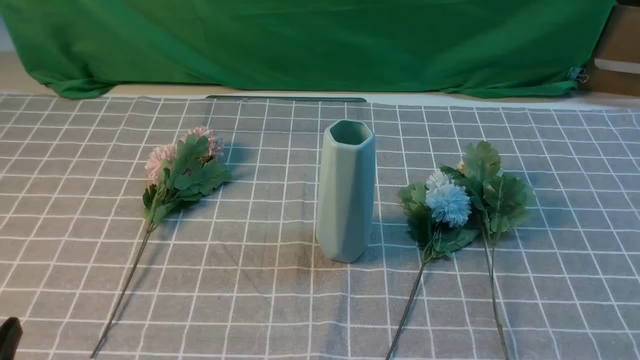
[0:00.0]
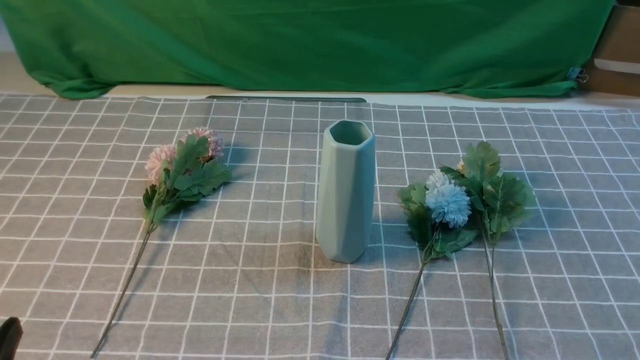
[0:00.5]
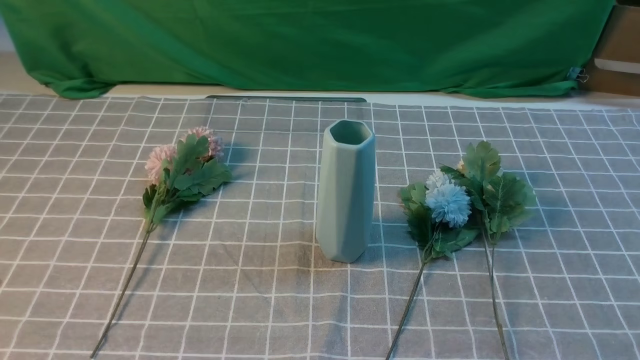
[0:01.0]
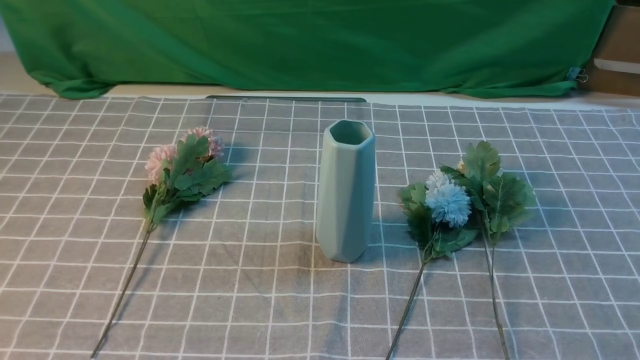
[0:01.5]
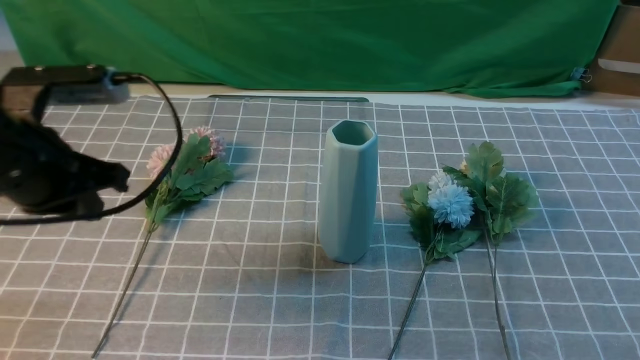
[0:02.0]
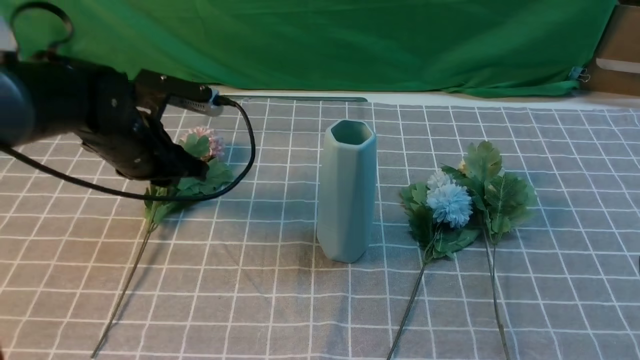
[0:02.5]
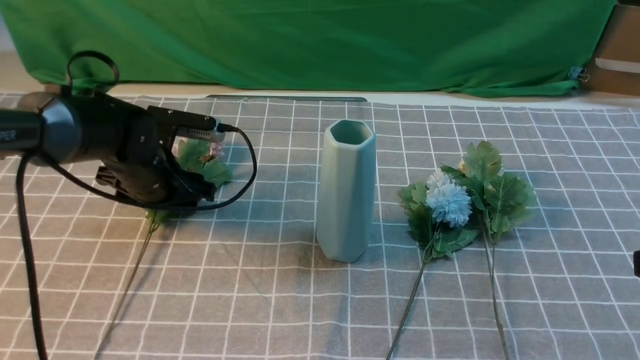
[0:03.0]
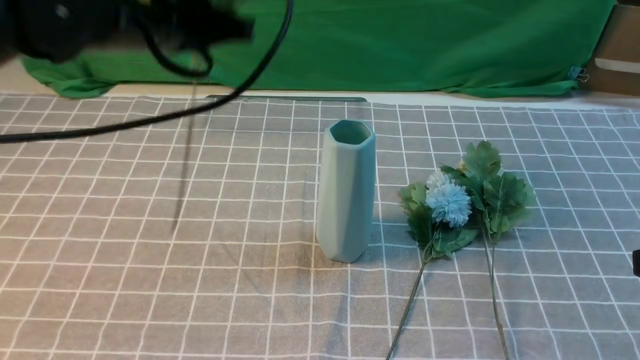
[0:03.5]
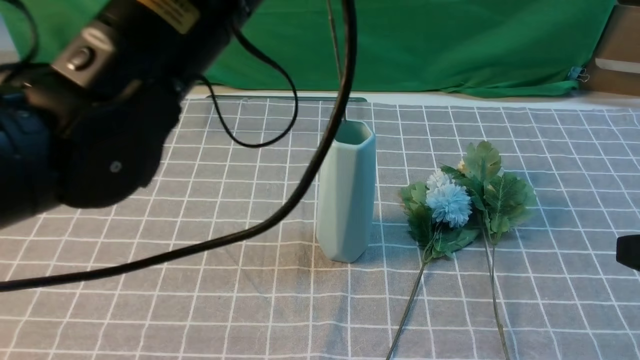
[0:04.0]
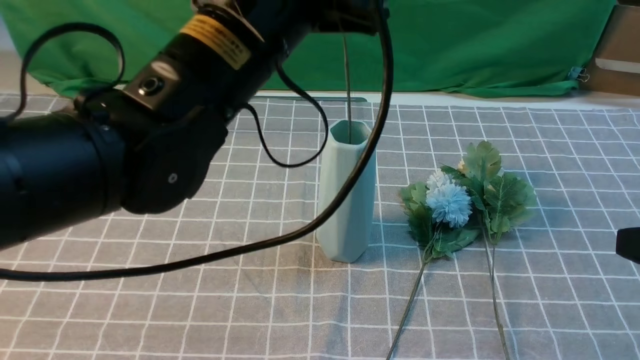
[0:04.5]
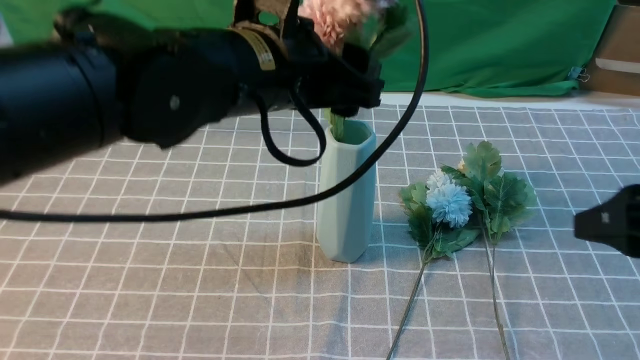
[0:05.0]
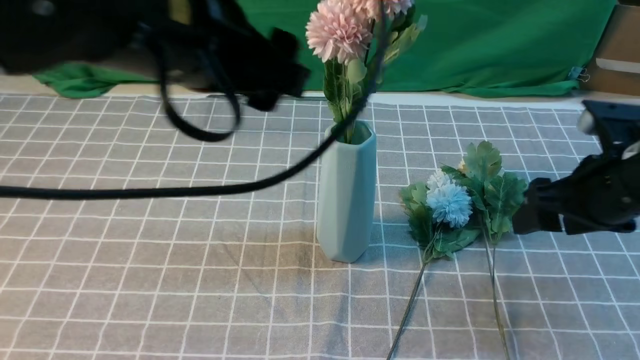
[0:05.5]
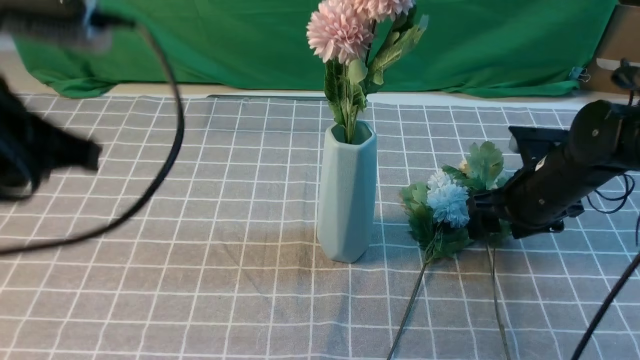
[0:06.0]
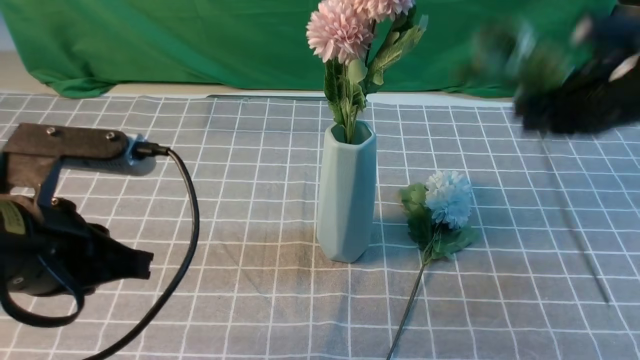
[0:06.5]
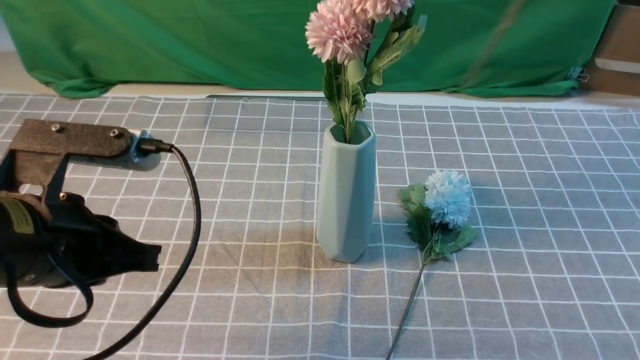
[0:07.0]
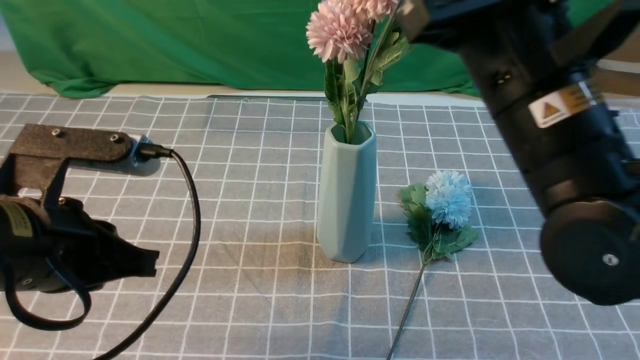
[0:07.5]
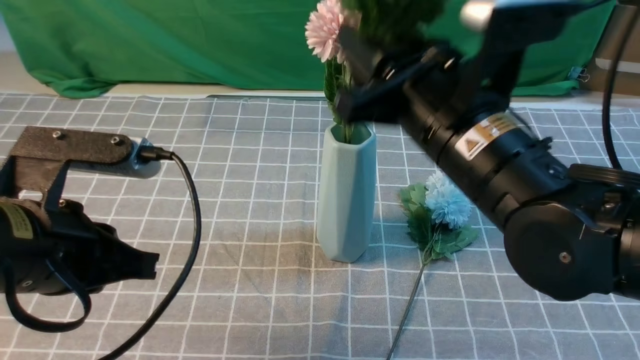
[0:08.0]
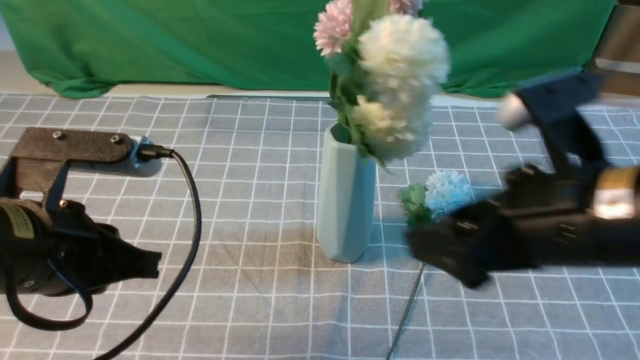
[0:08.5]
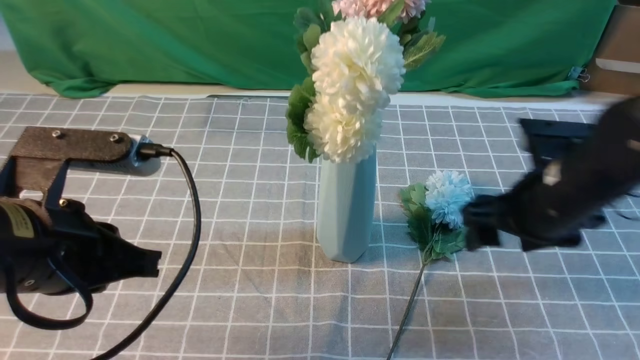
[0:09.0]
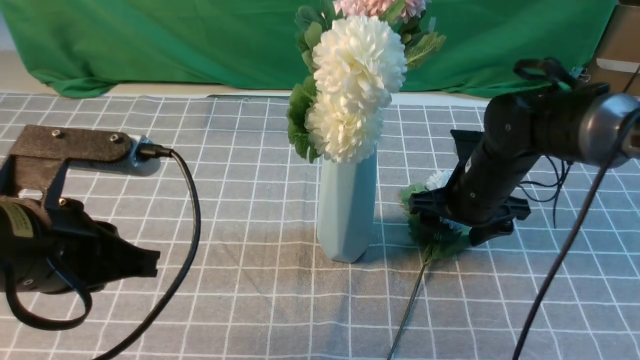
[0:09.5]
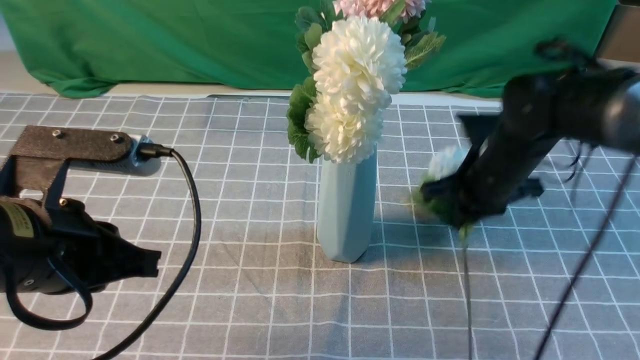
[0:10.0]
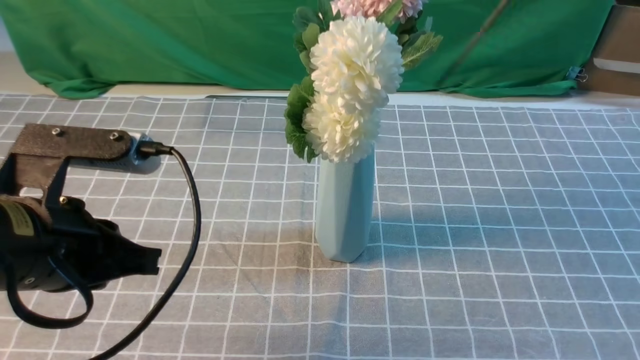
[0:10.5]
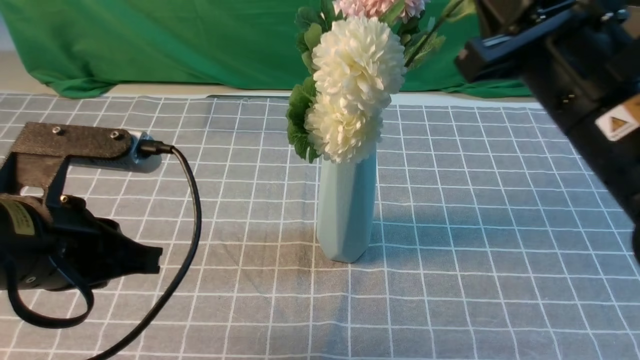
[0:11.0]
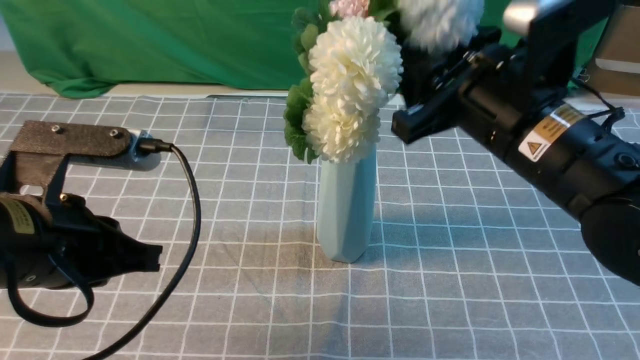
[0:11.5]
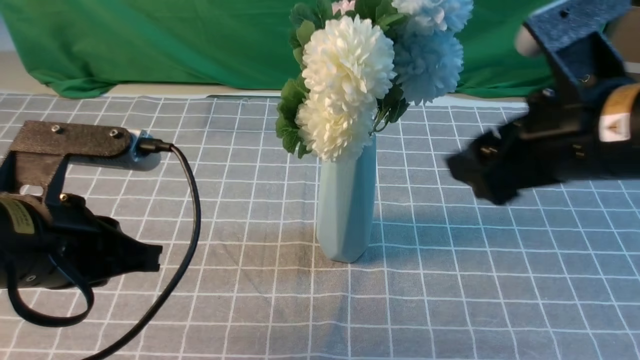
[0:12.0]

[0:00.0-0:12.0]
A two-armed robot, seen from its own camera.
Task of the whole recording: insert the flowers into the vase on the table with the grey tablecloth.
Step, 0:00.0 to 0:03.0: use the left arm to grab a bunch of fresh flowers.
Step, 0:03.5 to 0:05.5: use the left arm to insert the flowers into the vase.
Step, 0:06.5 to 0:08.0: use the right arm to insert the flowers into the vase.
Step, 0:08.5 to 0:09.5: use the right arm to grab a bunch of fresh flowers.
Step, 0:10.0 to 0:11.5: use the right arm to insert the flowers into the vase.
0:00.0 to 0:02.0: The right gripper goes roughly 5 cm upward. The left gripper shifts about 25 cm forward and upward, and closes its fingers.
0:02.0 to 0:04.0: The right gripper moves forward and upward, approximately 10 cm, while the left gripper moves to the right and upward, about 20 cm, and opens and closes again.
0:04.0 to 0:06.0: The right gripper travels forward and downward by some 25 cm, and opens up. The left gripper goes some 15 cm to the left and backward, and opens, then closes once more.
0:06.0 to 0:08.0: The left gripper moves downward, approximately 10 cm. The right gripper heads upward, to the left and backward, covering about 25 cm, and closes and opens again.
0:08.0 to 0:10.0: The right gripper shifts roughly 15 cm forward, to the right and downward, and closes up.
0:10.0 to 0:12.0: The right gripper heads backward and upward, covering some 20 cm, and opens.

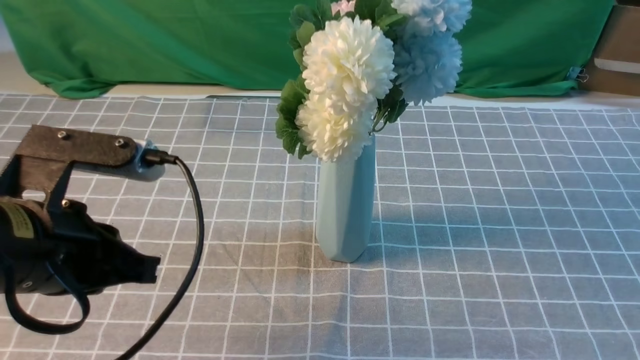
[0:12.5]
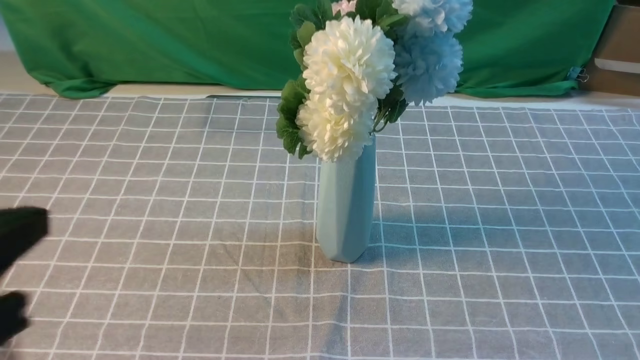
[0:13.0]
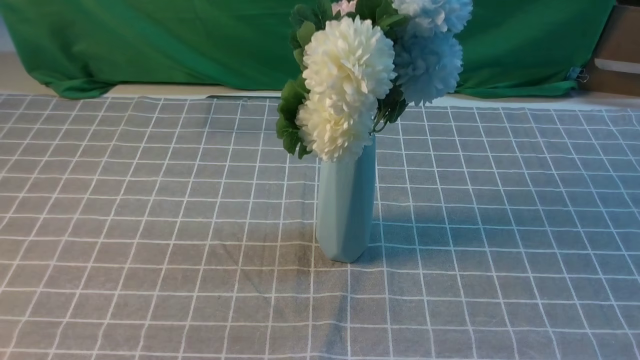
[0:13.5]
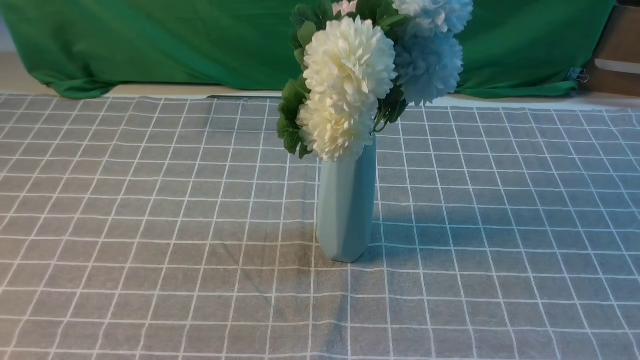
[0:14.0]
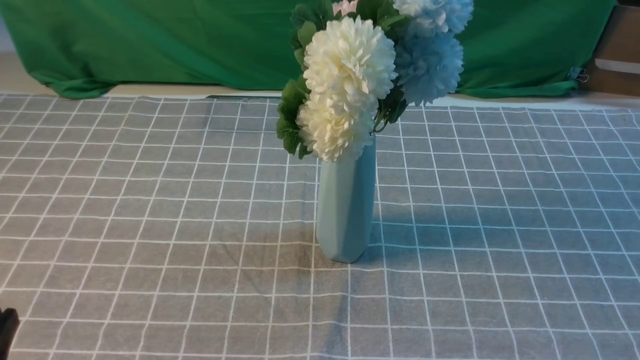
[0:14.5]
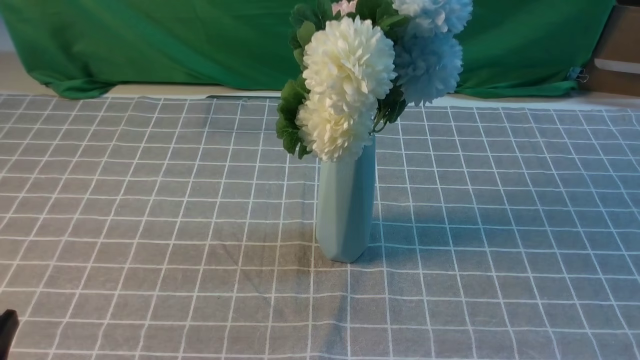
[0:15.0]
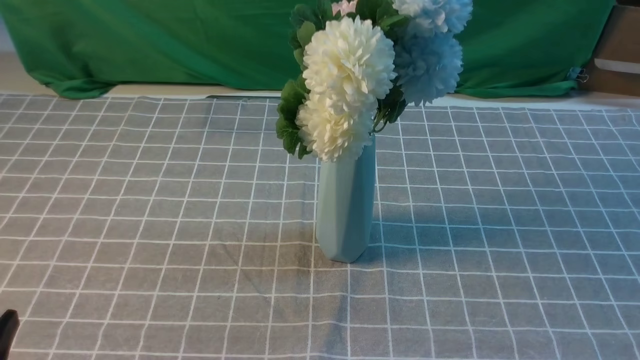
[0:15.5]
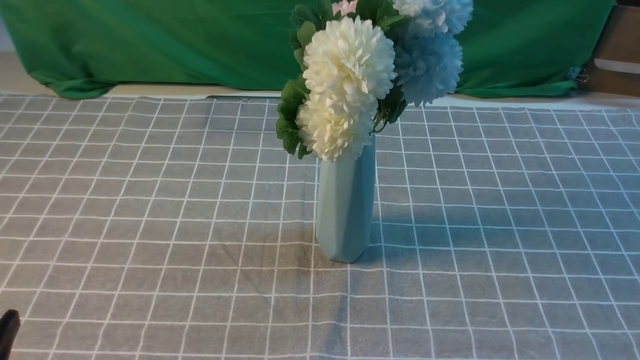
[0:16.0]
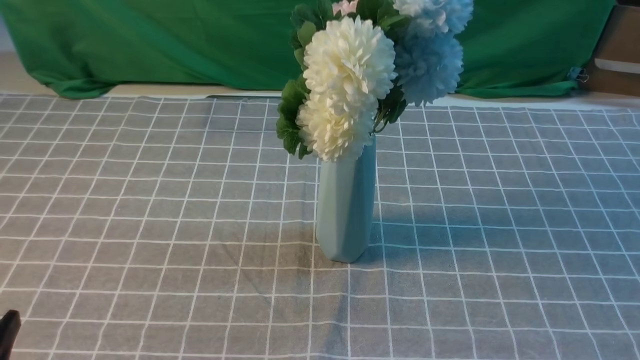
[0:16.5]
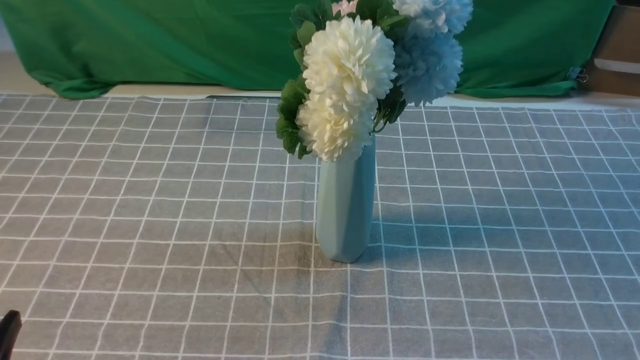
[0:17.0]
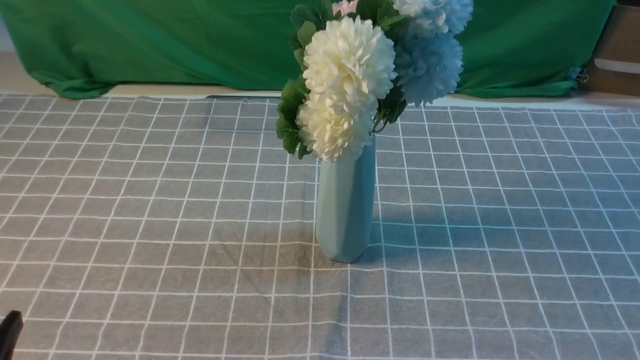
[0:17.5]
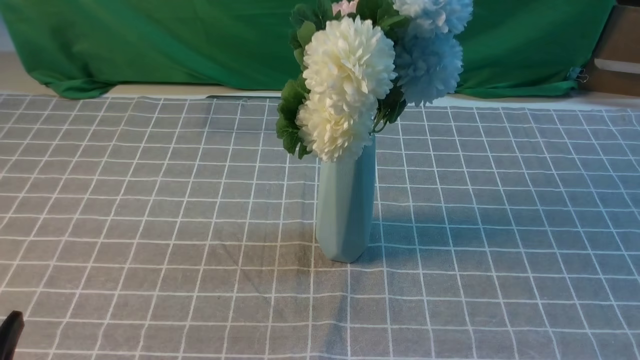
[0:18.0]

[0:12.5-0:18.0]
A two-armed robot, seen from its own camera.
Task of the whole recording: insert the flowers into the vase on the table with the grey tablecloth.
0:12.5 to 0:14.5: The right gripper travels downward and backward by about 10 cm. Meanwhile the left gripper shifts about 15 cm backward, downward and to the left.
